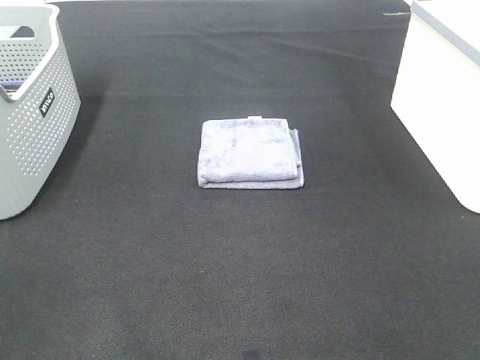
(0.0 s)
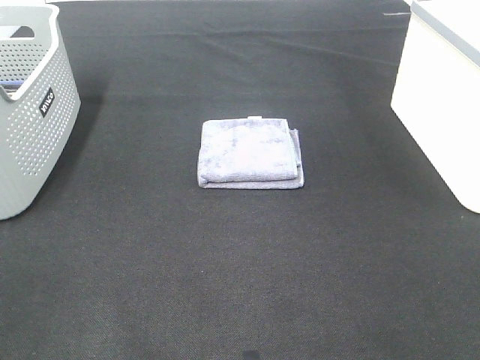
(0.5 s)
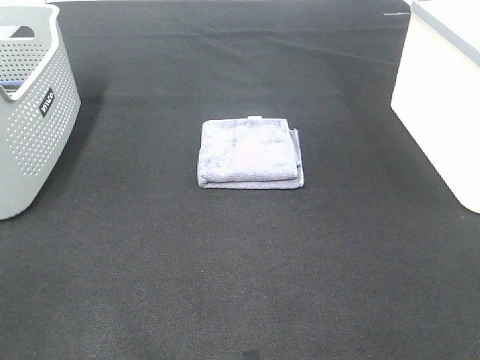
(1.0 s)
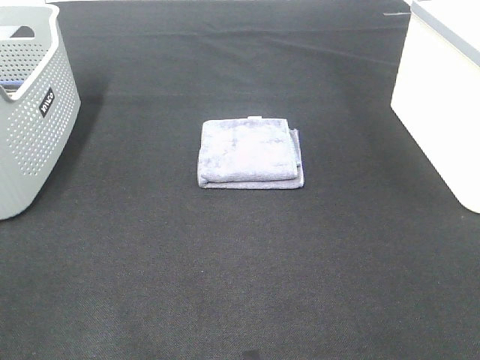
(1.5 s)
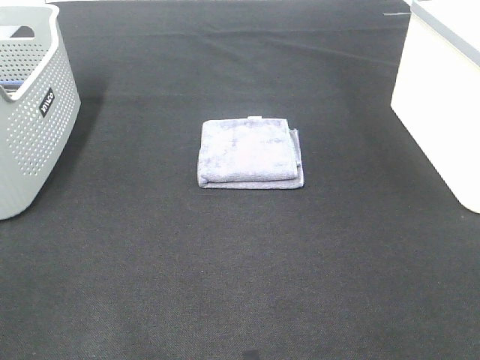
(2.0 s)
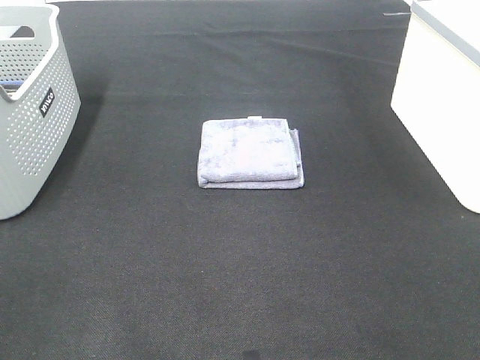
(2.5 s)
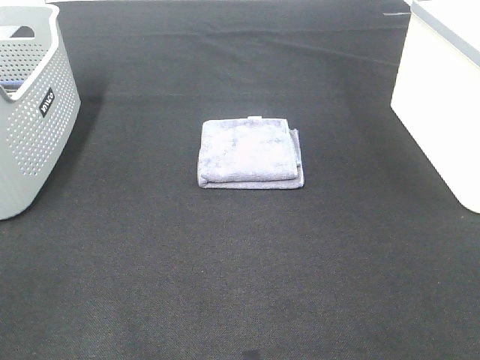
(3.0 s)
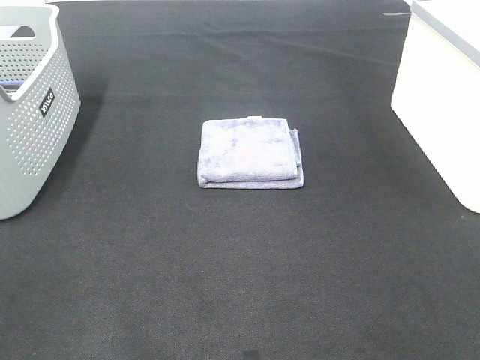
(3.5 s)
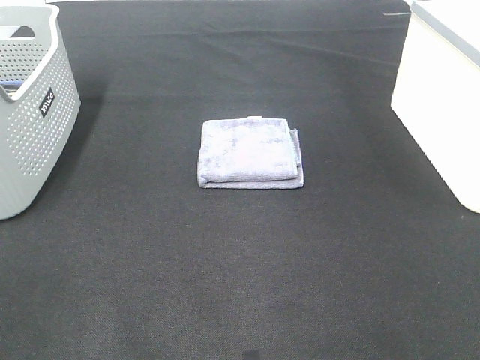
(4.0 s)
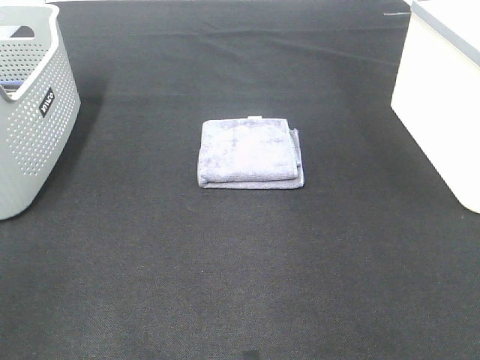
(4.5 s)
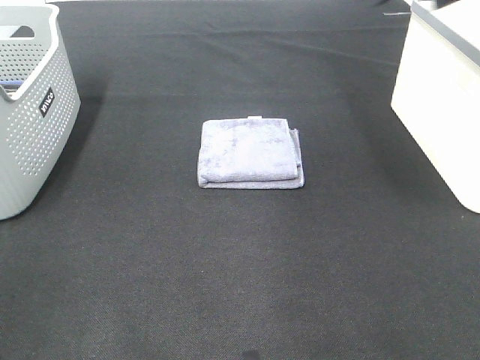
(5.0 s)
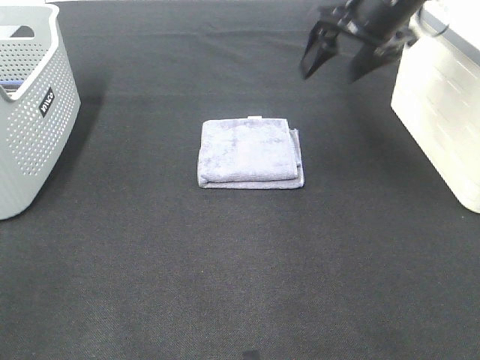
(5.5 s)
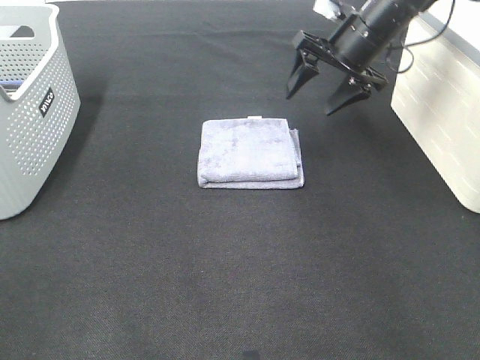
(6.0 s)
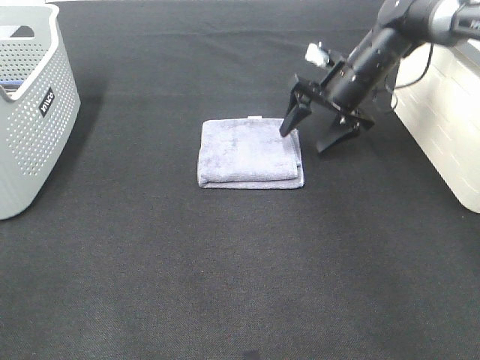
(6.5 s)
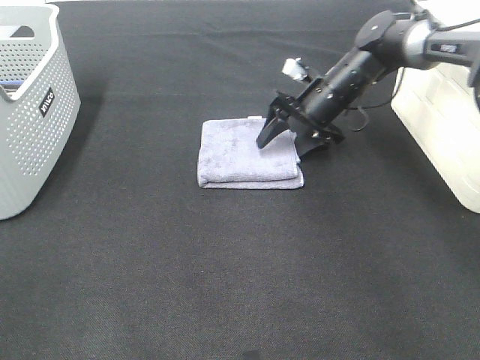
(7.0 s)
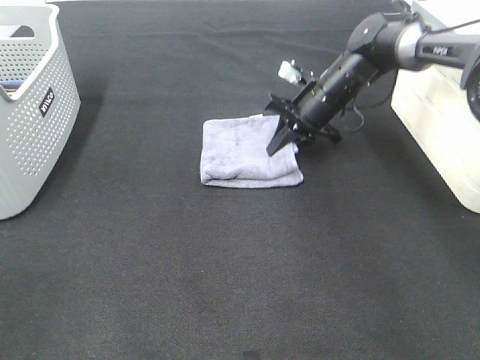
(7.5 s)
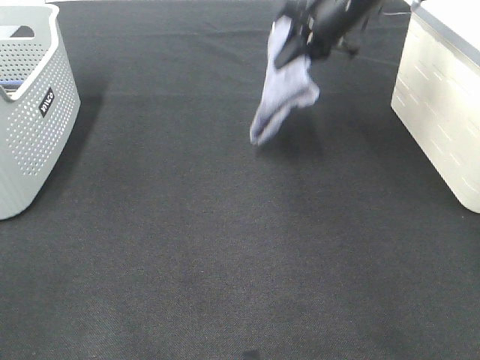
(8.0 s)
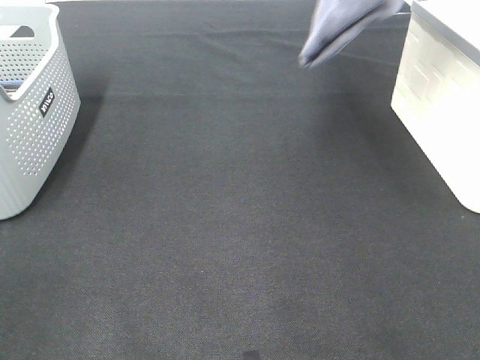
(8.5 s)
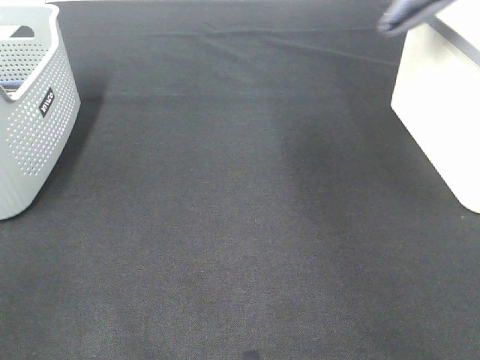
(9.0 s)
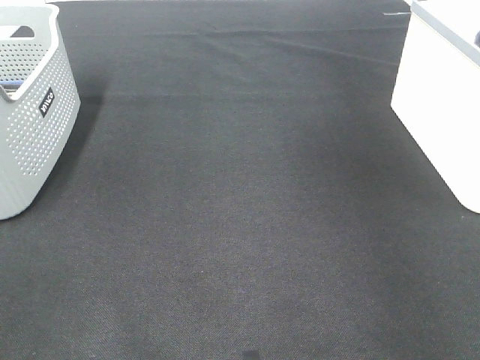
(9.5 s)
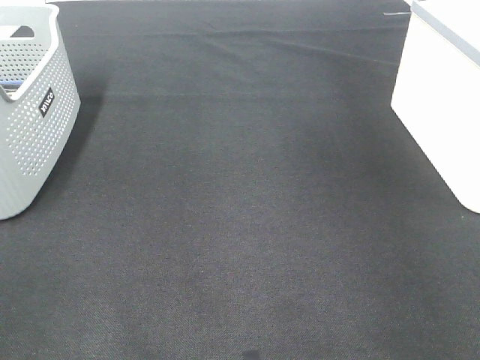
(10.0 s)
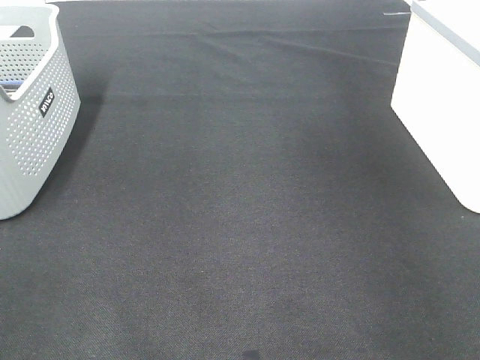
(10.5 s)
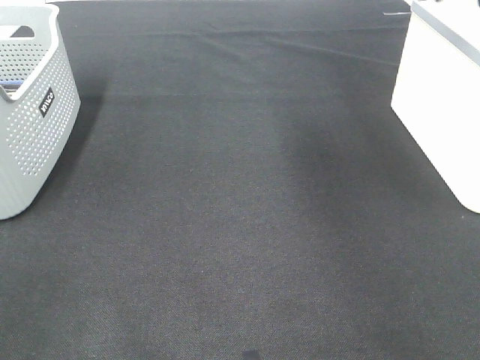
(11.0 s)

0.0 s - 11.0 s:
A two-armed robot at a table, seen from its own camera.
Step, 0.0 s - 7.0 s: Right hand: grab the folded grey towel.
Step, 7.5 s - 10.0 s: Right hand: place the grey towel in right basket.
0.0 s - 3.5 s: Both grippers stay put.
3.5 s - 5.5 s: The right gripper travels forward by some 40 cm.
5.5 s - 7.5 s: The right gripper moves downward, roughly 15 cm, and closes.
7.5 s - 9.0 s: The right gripper goes about 35 cm upward and to the right.
9.0 s - 11.0 s: The right gripper reaches some 10 cm to the right, then returns, and opens its fingers.

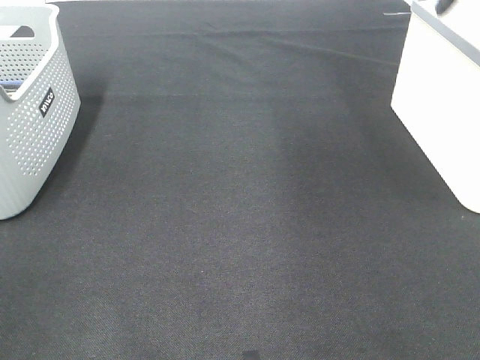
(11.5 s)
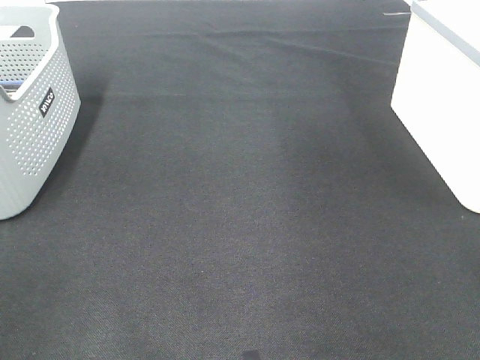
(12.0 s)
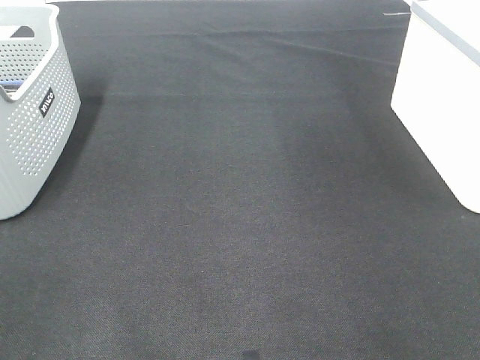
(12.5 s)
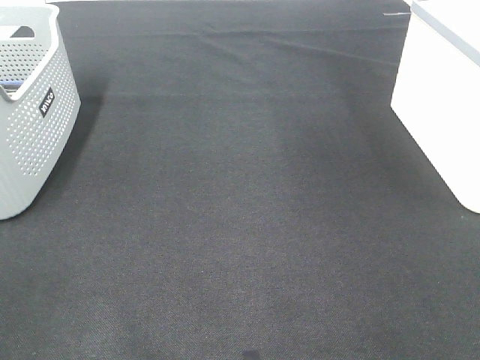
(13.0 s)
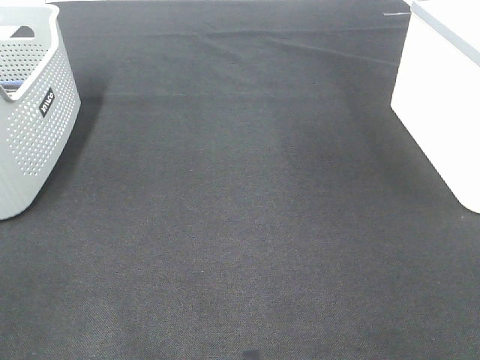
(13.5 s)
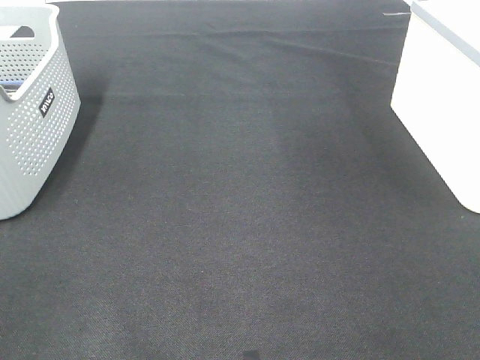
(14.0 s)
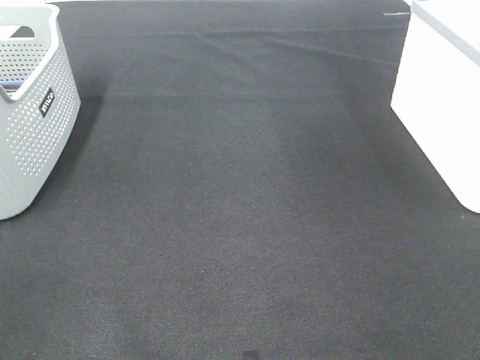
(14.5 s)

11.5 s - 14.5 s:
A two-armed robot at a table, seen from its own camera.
13.0 s - 14.5 s: The two grippers keep their place.
